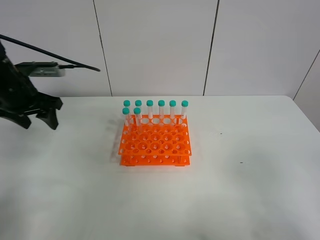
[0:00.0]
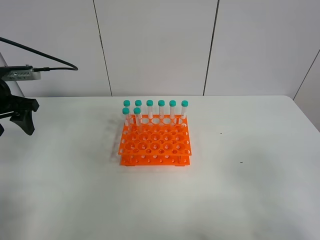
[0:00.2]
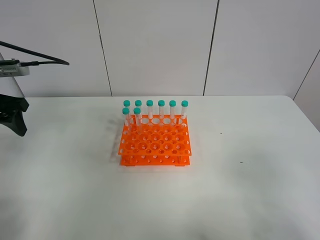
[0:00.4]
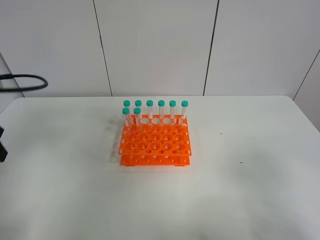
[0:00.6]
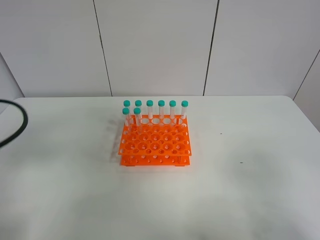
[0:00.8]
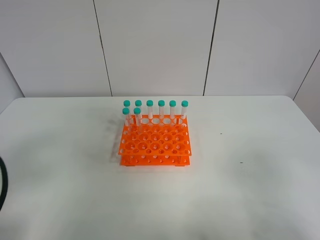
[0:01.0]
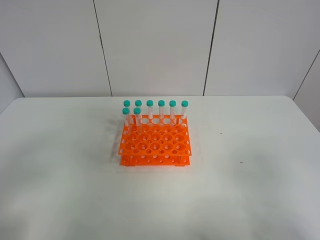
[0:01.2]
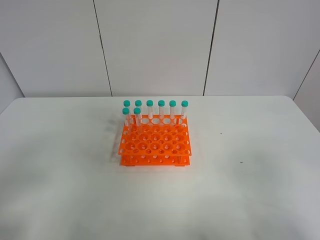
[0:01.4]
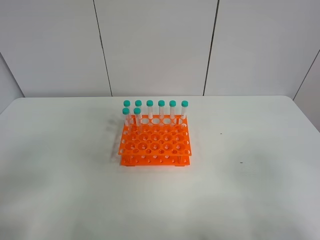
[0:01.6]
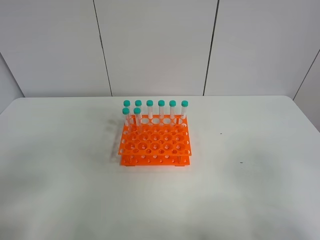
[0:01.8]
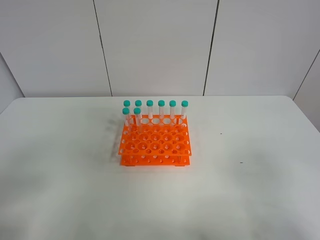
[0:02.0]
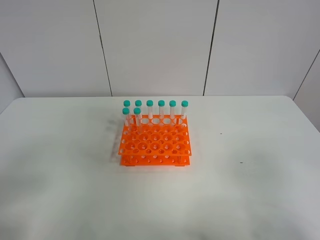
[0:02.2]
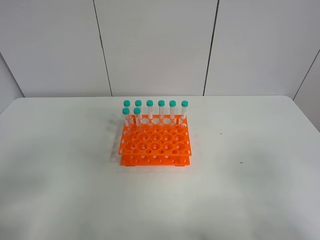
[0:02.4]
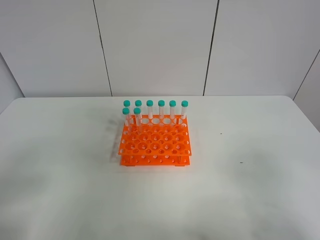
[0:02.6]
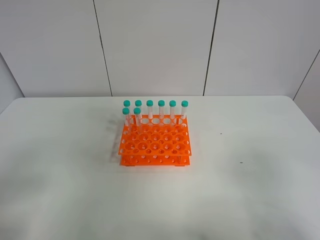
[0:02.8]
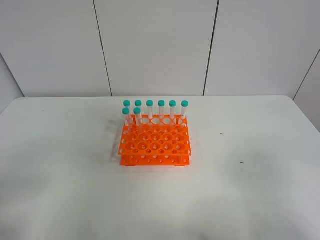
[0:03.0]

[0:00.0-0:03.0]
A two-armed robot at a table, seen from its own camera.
Task of the whole recording: Put the test tube on the table back onto the test tube rack.
0:00.0 to 0:01.6: The left gripper moves backward, some 30 cm.
